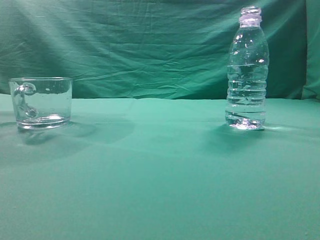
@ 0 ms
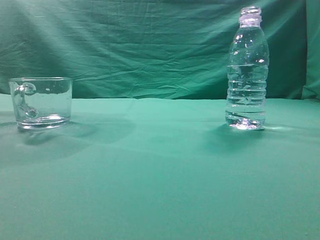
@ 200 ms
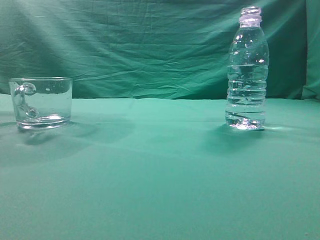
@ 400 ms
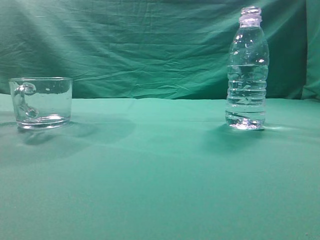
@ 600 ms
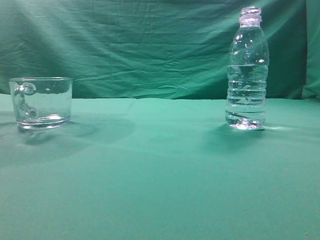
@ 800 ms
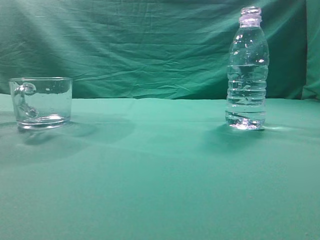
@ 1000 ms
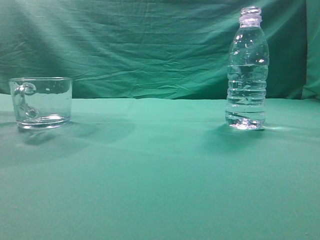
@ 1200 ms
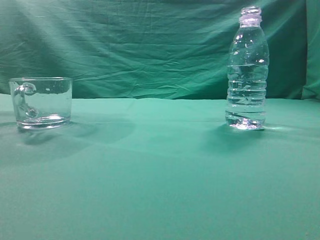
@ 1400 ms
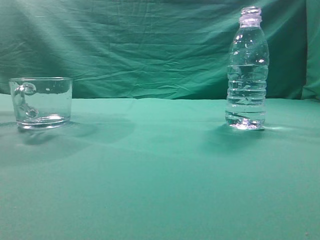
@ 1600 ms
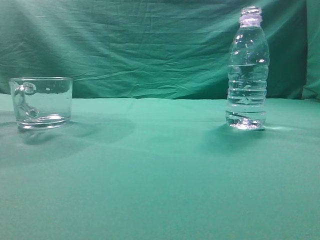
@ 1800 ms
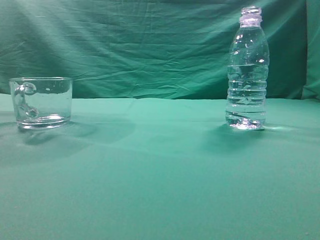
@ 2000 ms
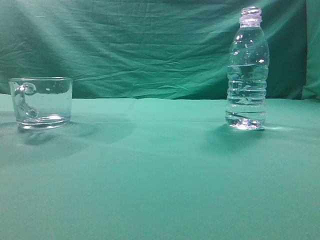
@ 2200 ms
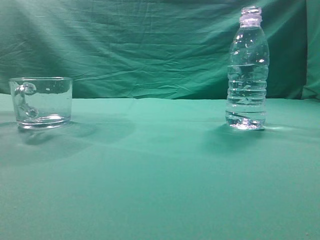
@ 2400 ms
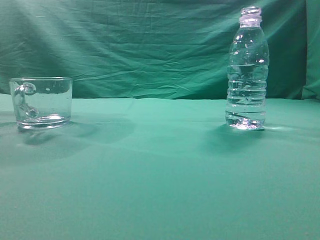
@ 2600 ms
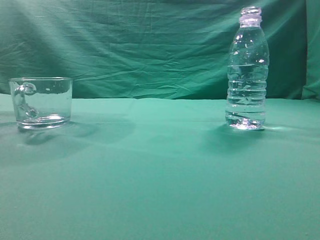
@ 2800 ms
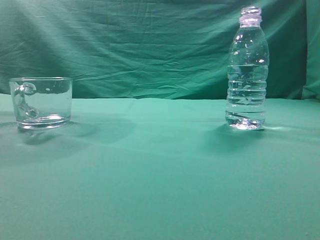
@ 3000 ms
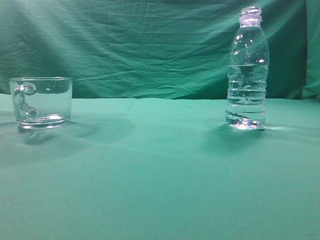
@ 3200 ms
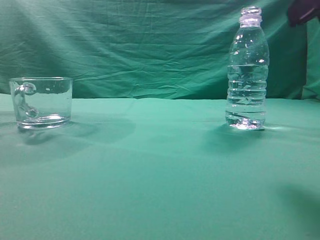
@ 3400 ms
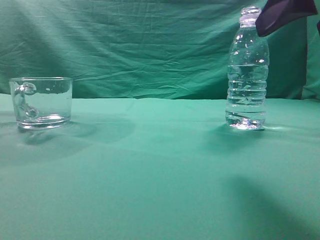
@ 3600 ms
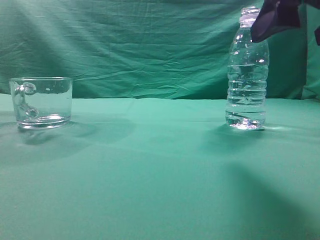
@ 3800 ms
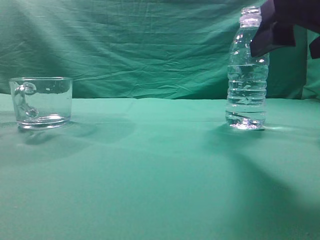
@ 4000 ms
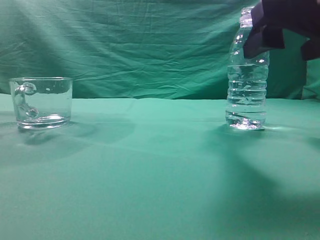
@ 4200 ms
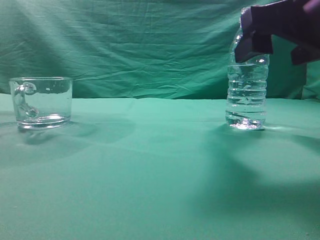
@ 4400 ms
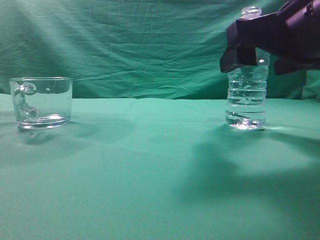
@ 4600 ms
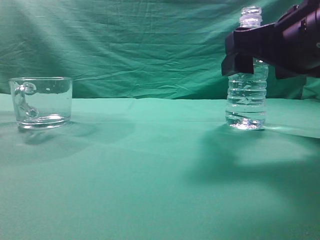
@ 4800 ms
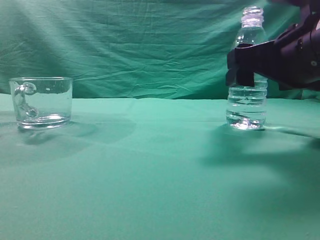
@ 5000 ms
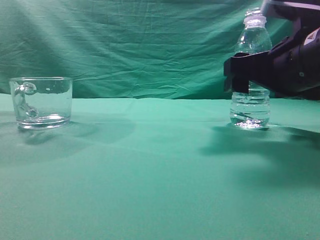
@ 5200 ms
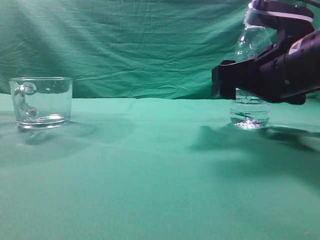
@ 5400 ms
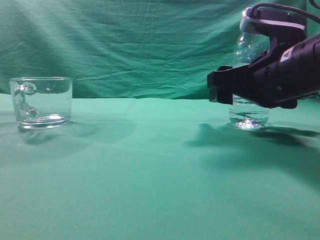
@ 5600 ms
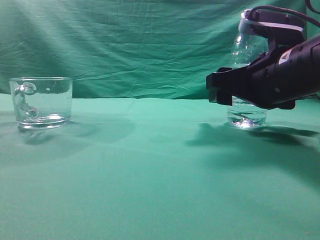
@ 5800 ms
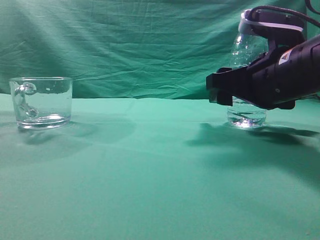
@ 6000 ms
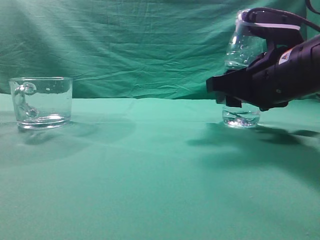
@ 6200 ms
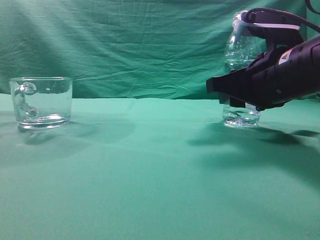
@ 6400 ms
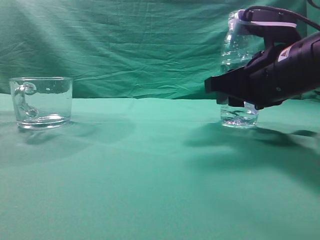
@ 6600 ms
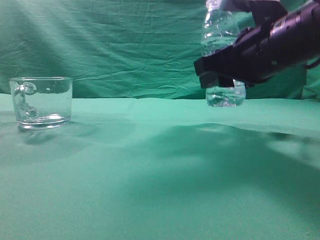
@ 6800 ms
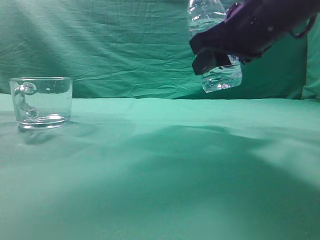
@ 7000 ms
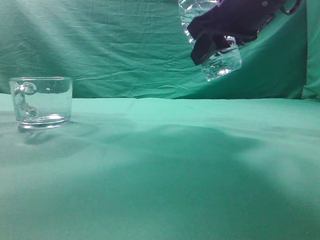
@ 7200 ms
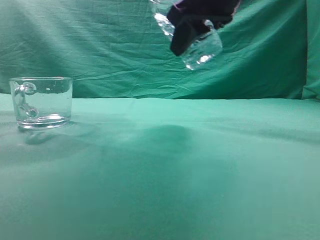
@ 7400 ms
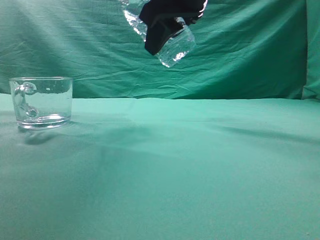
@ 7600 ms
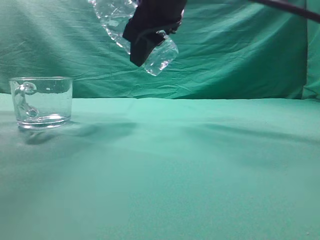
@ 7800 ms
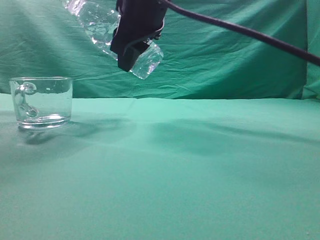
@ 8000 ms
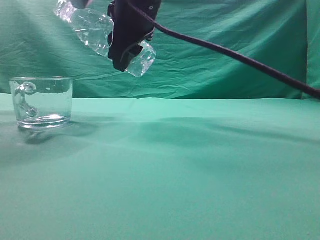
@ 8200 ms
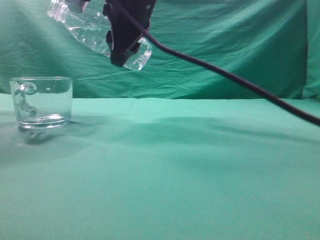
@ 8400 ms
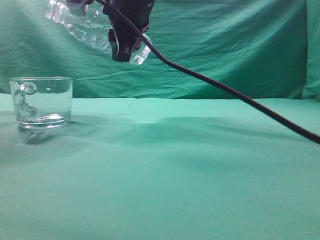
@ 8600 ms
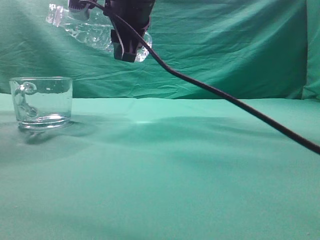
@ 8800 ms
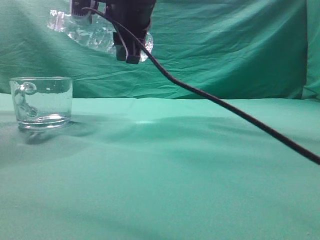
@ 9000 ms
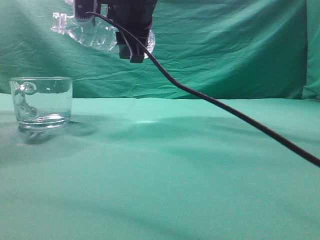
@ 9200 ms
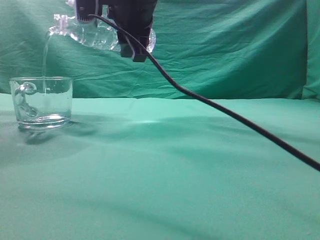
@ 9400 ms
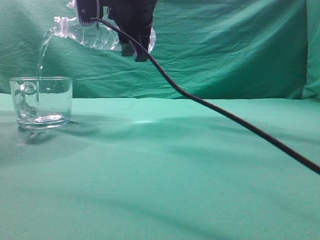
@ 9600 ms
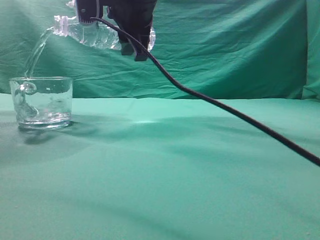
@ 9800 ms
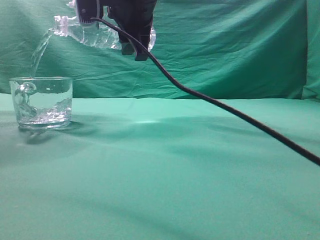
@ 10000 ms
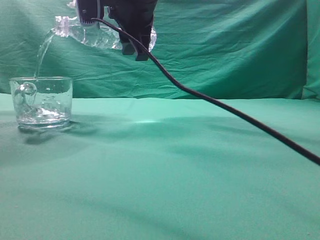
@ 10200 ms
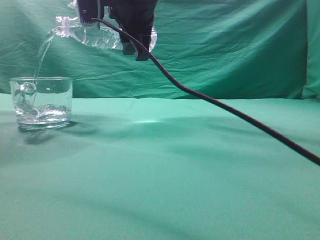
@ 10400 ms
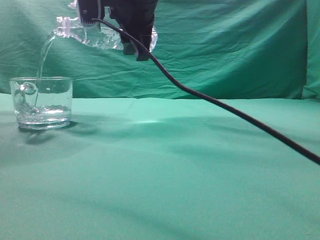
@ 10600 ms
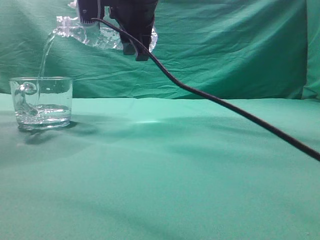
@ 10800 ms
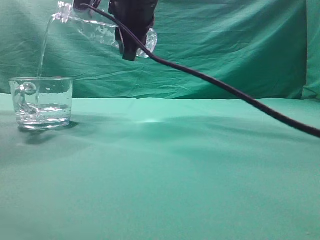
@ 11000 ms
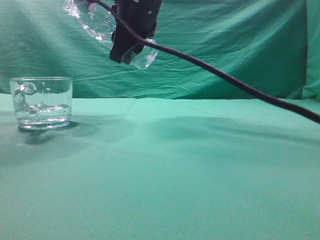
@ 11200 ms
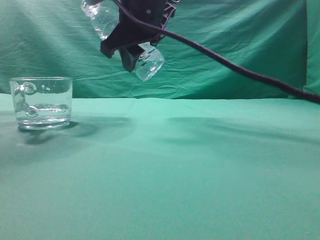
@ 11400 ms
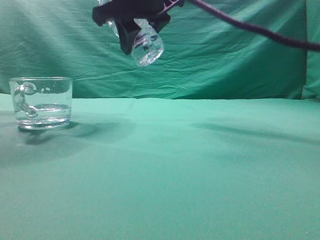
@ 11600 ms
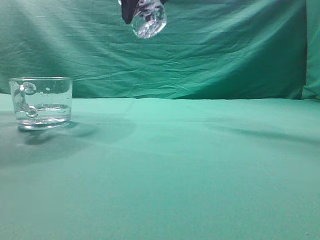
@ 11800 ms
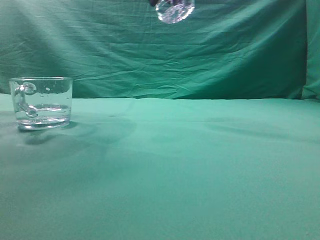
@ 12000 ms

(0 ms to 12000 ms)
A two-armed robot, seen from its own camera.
Task of the whole recording: pick up the water bottle and pour the water in it into the glass.
Step, 0 ms - 6800 ms: Grasp the mineral water bottle.
Step, 7000 ms - 11400 ms: Pour water into the teacup.
3000 ms - 4400 ms: The right gripper is displaced forward, downward and to the left by approximately 15 cm, and opens.
4400 ms - 6000 ms: The right gripper heads forward and downward, covering approximately 10 cm.
6000 ms - 7600 ms: The right gripper is displaced upward and to the left by roughly 20 cm, and closes up.
7600 ms - 9000 ms: The right gripper is displaced to the left and forward by some 10 cm.
9000 ms - 10400 ms: The grippers stay close to where they were, moving slightly.
10400 ms - 12000 ms: The right gripper shifts about 15 cm to the right, backward and upward.

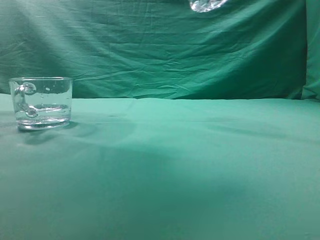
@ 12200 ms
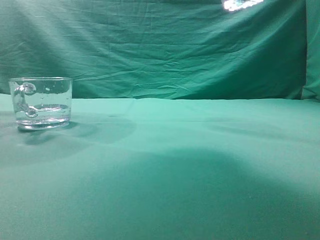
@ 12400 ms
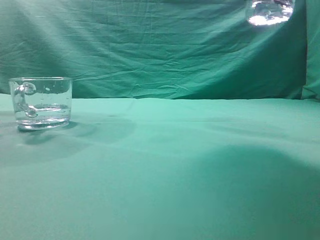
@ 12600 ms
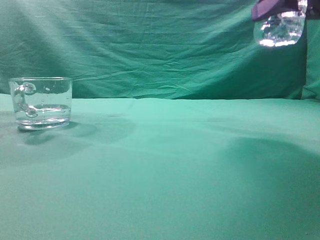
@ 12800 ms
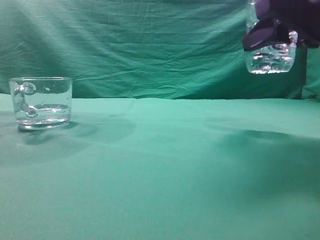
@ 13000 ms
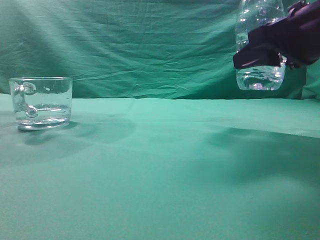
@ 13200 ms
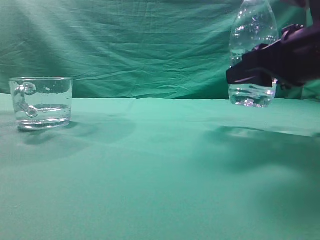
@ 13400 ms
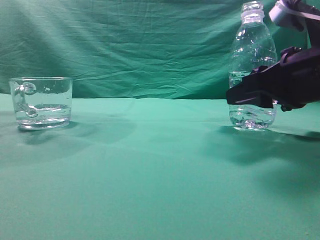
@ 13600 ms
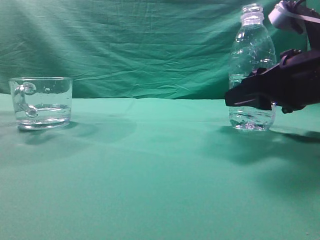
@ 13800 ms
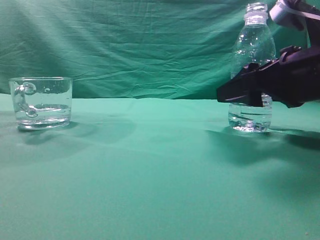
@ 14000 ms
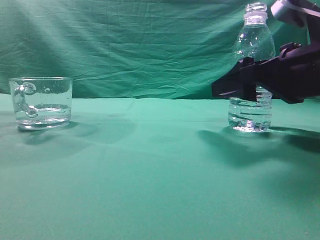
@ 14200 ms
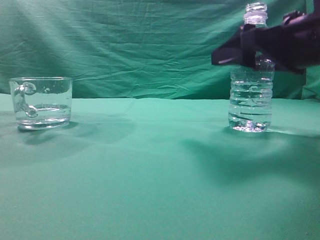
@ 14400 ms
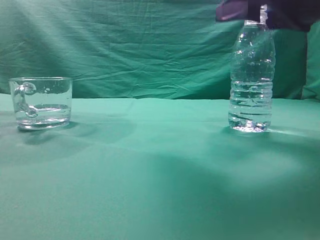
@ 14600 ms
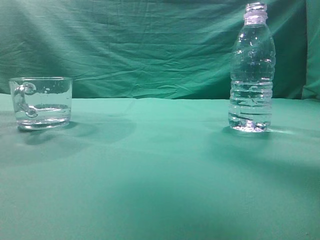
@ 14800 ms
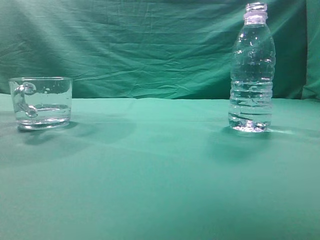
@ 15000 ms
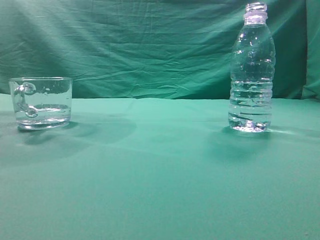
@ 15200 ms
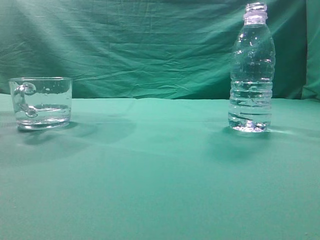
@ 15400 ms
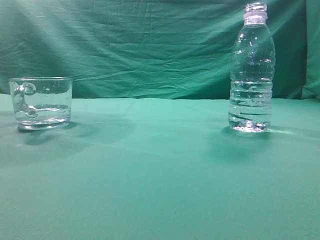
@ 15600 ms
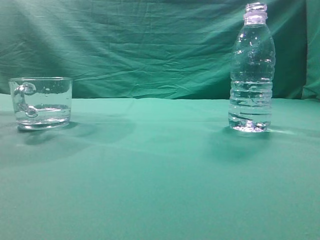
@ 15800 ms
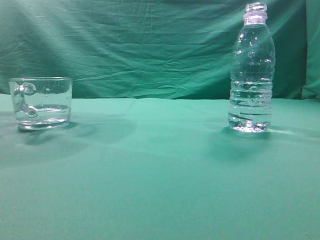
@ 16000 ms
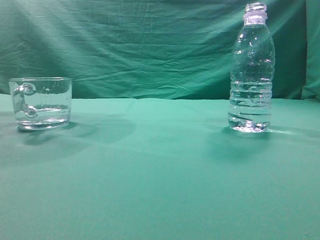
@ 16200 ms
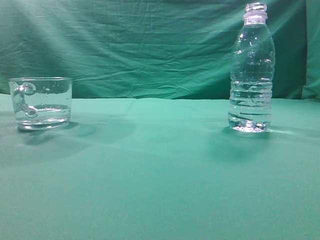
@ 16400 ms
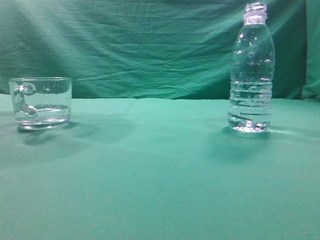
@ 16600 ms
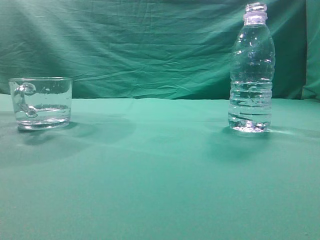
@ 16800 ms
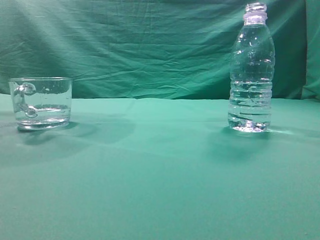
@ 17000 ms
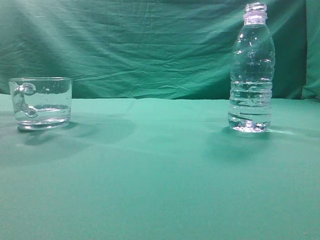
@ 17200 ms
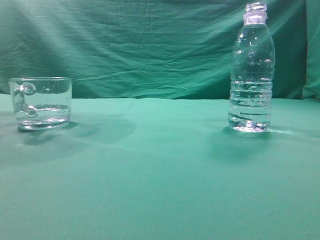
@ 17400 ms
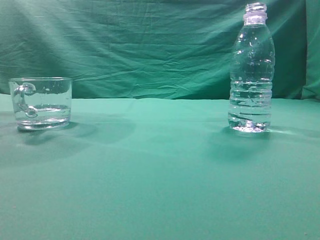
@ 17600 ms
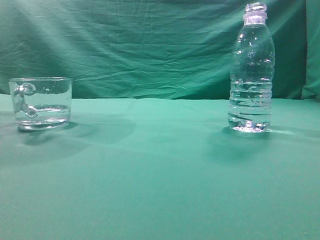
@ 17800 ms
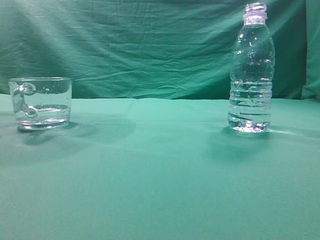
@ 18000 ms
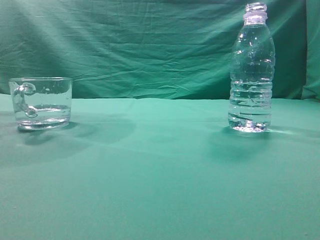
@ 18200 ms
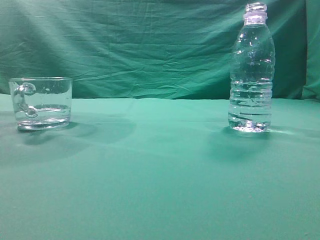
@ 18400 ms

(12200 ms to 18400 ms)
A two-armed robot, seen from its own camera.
Task of the whole recording: pick up the water bottle and pour the water in it into the glass.
12200 ms - 13800 ms: The right gripper heads downward, covering some 20 cm.
13800 ms - 15400 ms: The right gripper shifts roughly 30 cm upward and backward, and closes up.
